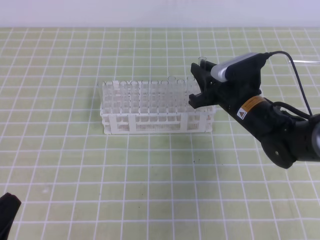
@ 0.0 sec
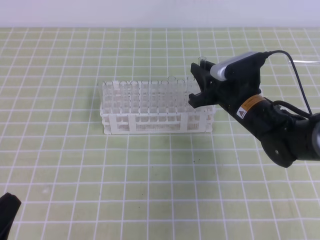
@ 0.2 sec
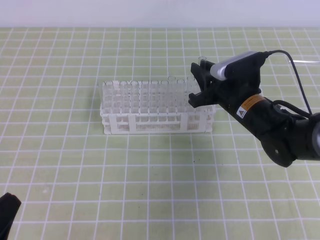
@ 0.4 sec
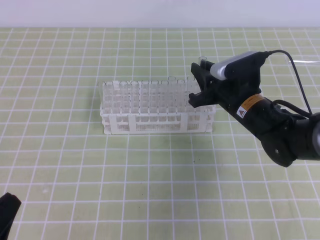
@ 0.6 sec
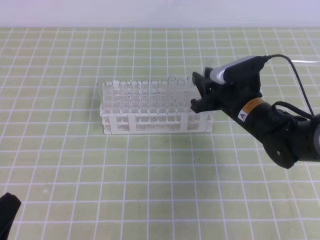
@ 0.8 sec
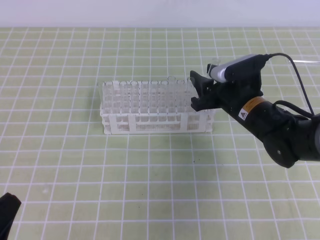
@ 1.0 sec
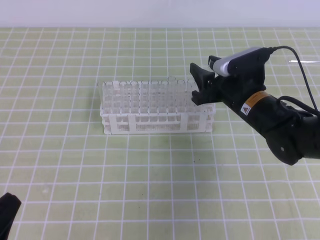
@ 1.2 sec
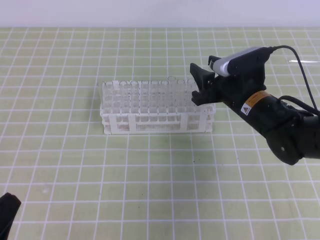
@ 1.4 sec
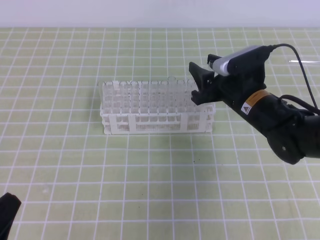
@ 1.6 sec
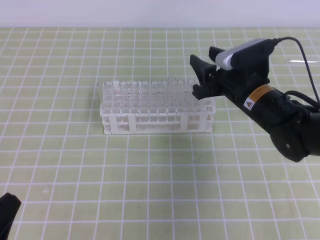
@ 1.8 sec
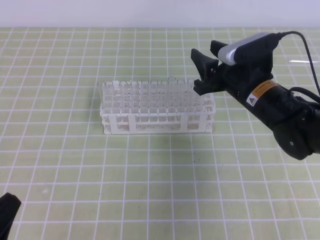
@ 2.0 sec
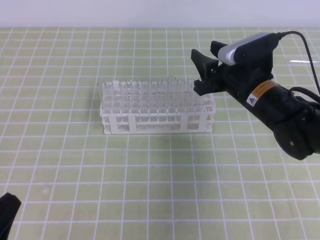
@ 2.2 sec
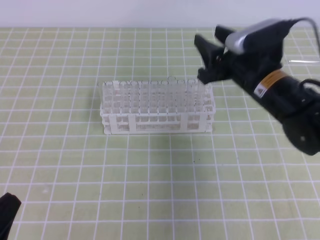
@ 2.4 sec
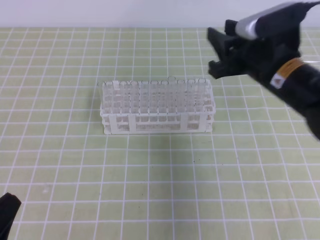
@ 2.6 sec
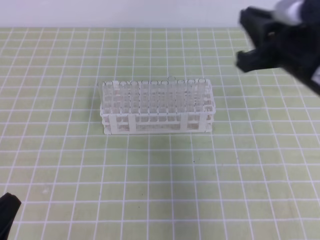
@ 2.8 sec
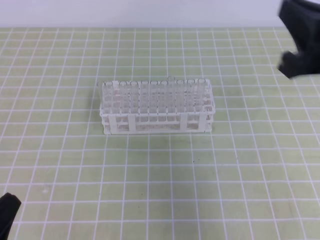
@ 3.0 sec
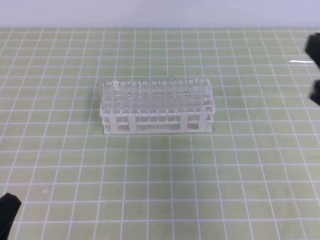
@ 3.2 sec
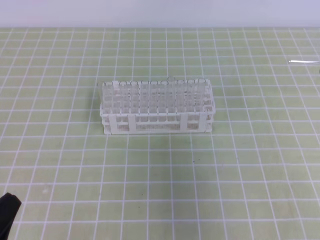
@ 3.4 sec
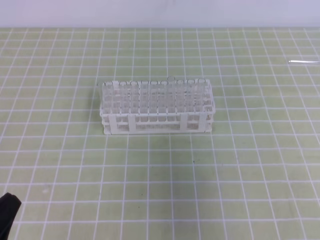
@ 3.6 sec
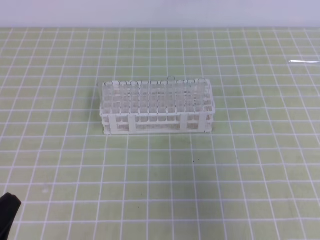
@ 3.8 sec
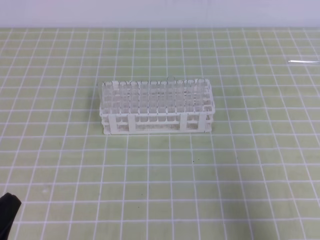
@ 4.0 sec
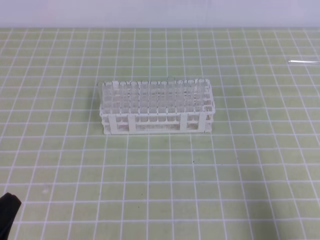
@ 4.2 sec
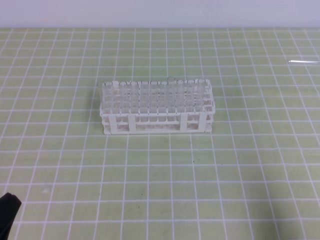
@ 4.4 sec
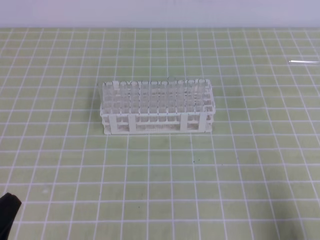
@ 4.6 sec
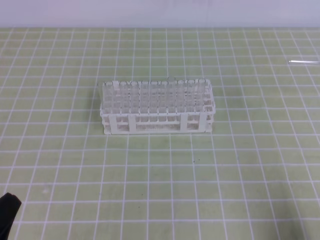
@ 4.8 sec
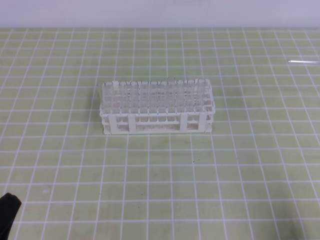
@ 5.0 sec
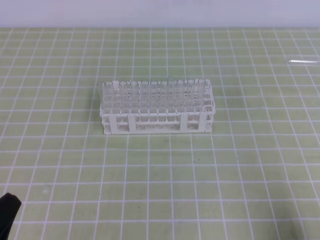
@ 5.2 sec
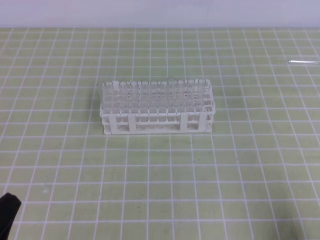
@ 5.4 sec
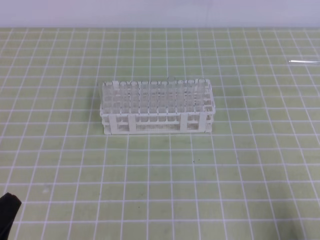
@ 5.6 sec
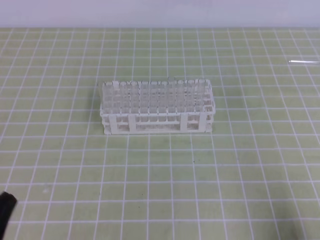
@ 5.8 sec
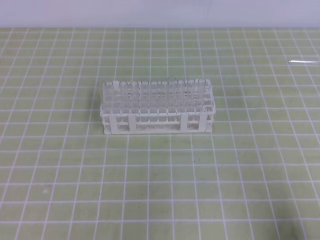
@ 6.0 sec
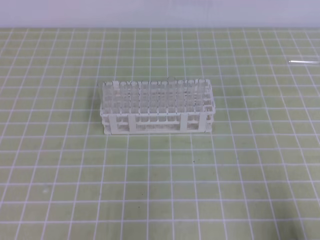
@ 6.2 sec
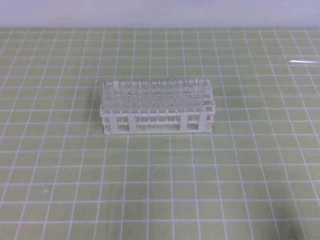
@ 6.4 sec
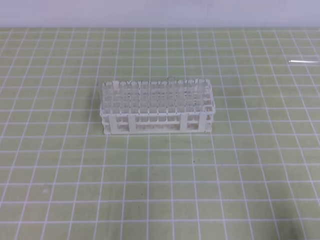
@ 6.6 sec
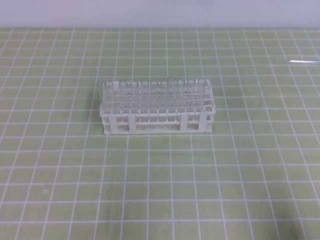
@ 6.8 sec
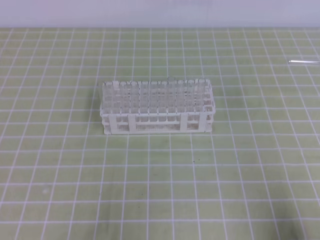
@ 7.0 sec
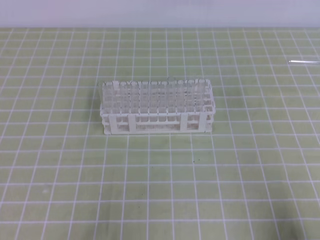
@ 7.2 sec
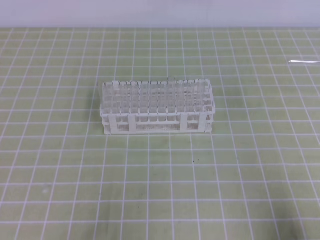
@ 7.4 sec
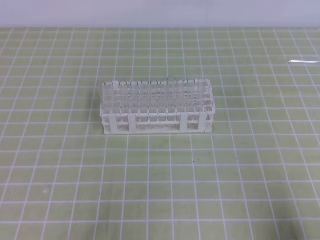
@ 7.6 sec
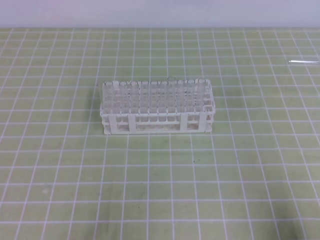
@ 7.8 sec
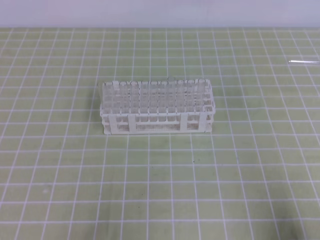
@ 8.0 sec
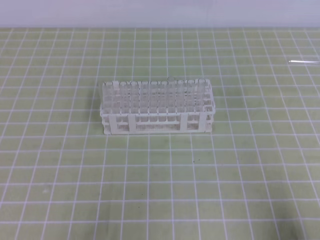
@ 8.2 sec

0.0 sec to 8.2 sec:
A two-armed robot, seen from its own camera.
0.0 sec to 1.6 sec: The right gripper opens up.
1.6 sec to 3.2 sec: The right gripper shifts approximately 25 cm backward, upward and to the right, and closes up.
3.2 sec to 5.0 sec: The right gripper travels downward, backward and to the right by some 25 cm.
